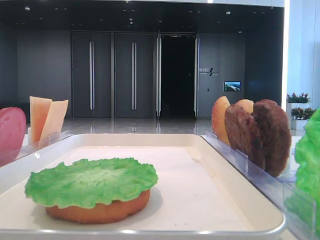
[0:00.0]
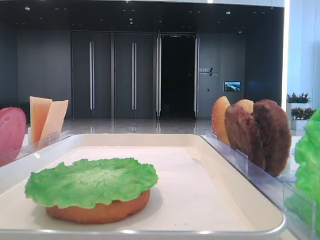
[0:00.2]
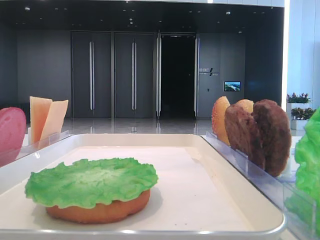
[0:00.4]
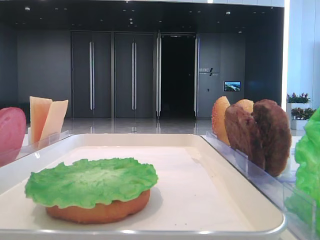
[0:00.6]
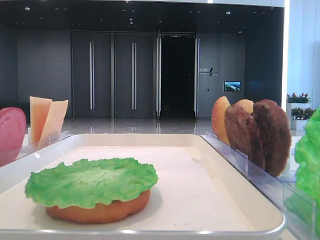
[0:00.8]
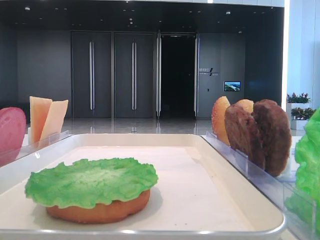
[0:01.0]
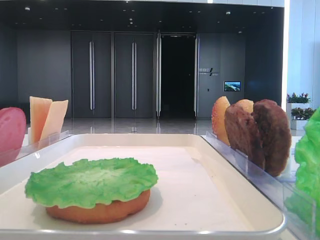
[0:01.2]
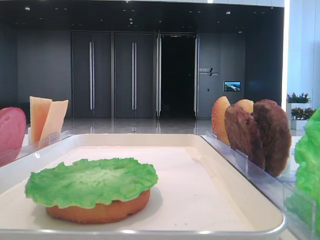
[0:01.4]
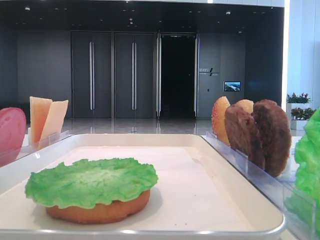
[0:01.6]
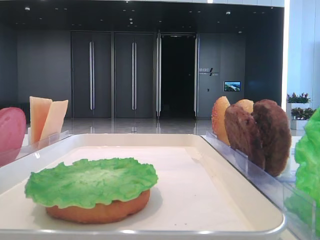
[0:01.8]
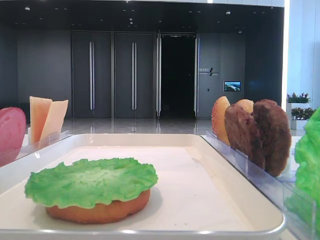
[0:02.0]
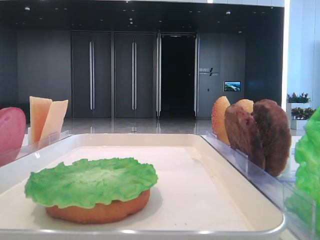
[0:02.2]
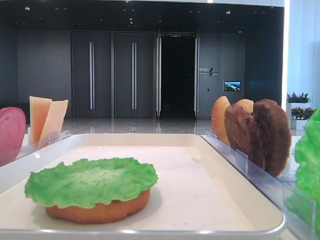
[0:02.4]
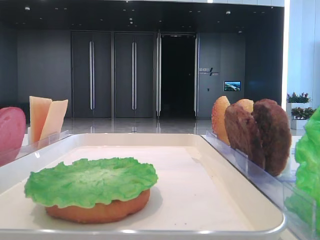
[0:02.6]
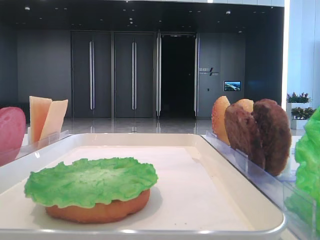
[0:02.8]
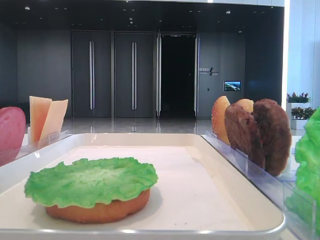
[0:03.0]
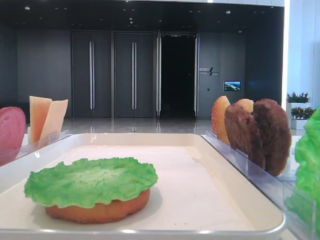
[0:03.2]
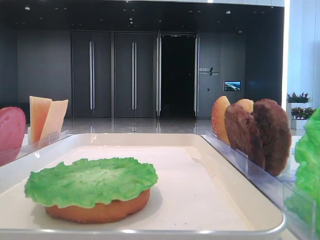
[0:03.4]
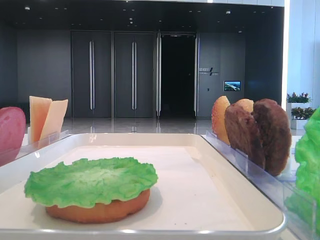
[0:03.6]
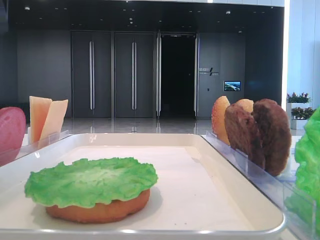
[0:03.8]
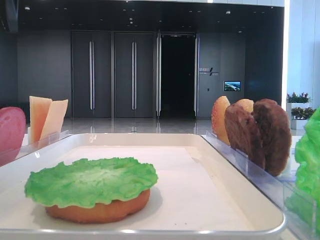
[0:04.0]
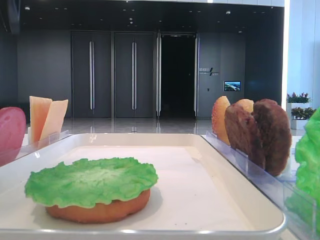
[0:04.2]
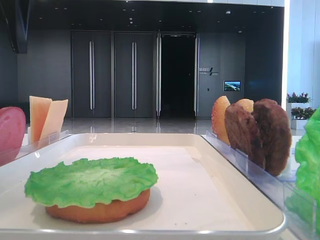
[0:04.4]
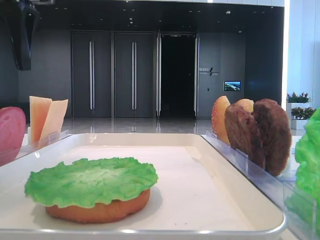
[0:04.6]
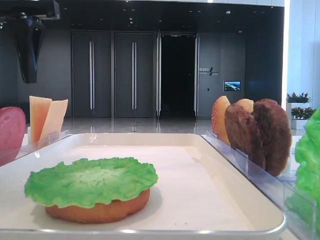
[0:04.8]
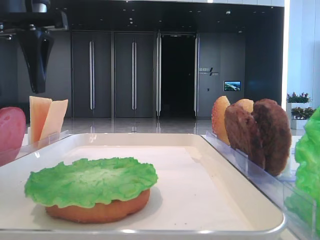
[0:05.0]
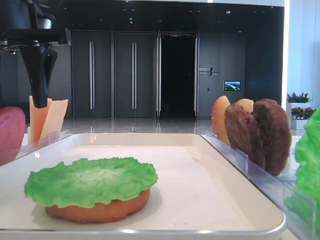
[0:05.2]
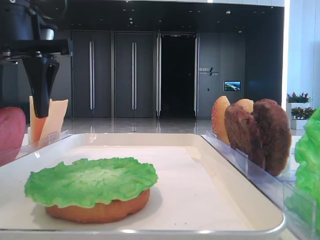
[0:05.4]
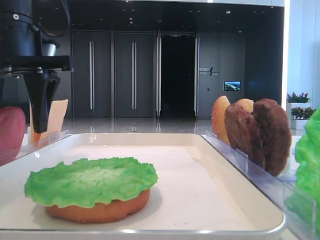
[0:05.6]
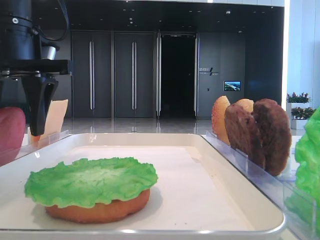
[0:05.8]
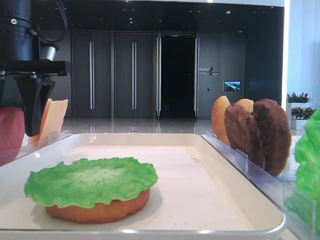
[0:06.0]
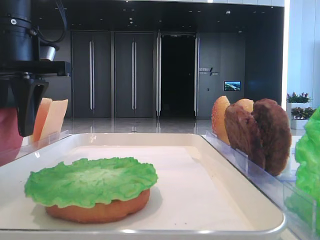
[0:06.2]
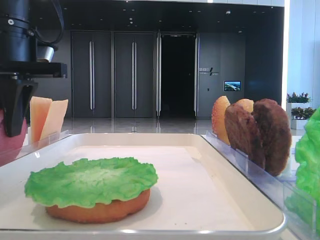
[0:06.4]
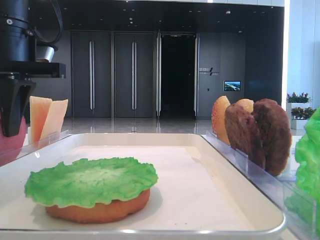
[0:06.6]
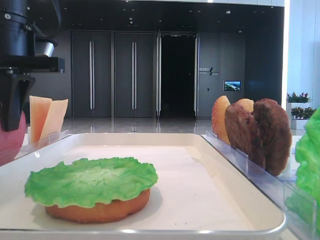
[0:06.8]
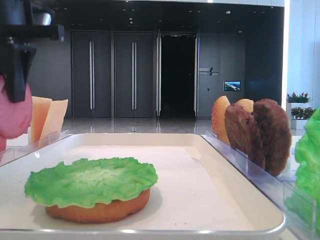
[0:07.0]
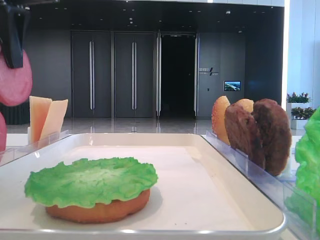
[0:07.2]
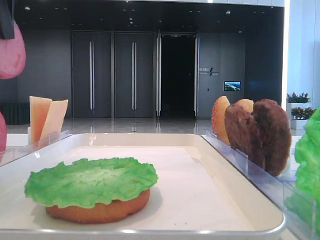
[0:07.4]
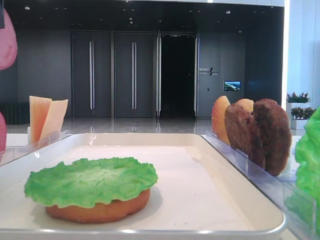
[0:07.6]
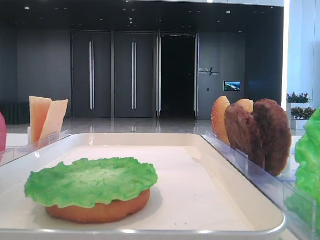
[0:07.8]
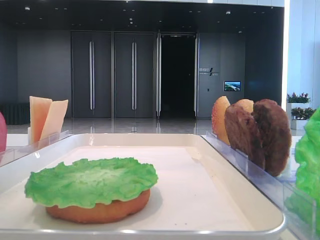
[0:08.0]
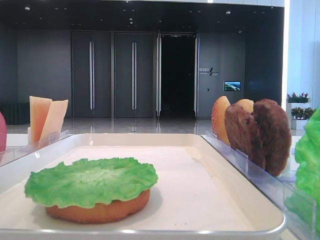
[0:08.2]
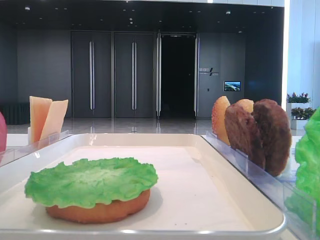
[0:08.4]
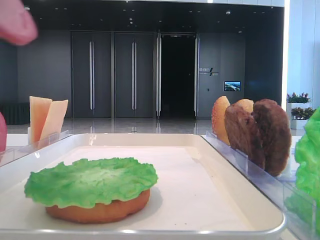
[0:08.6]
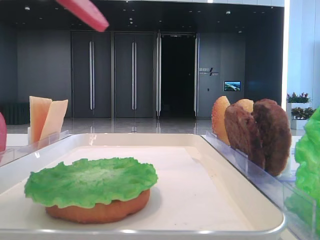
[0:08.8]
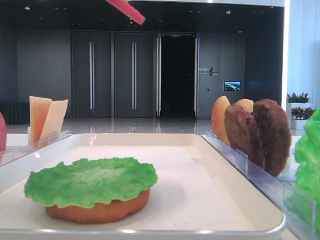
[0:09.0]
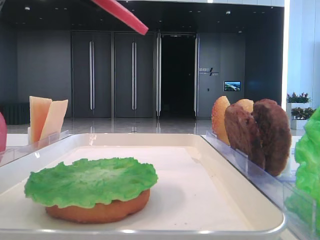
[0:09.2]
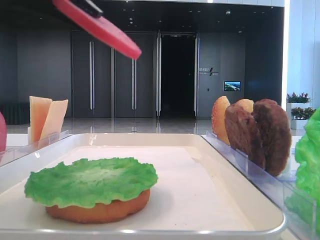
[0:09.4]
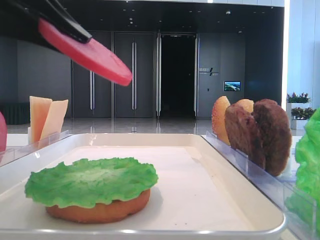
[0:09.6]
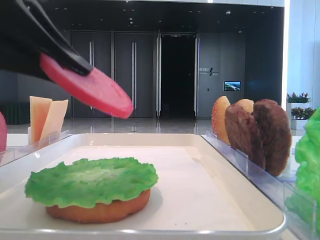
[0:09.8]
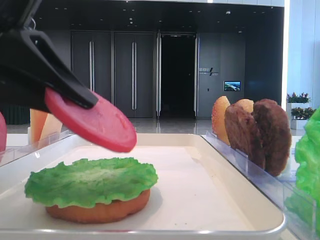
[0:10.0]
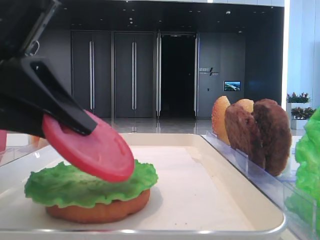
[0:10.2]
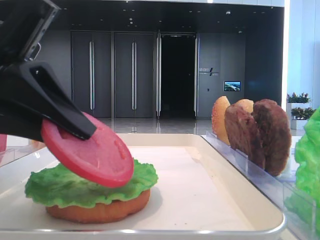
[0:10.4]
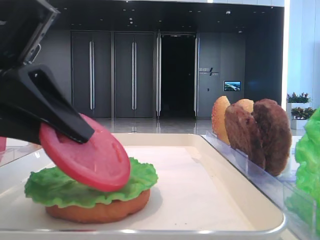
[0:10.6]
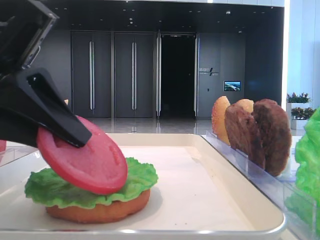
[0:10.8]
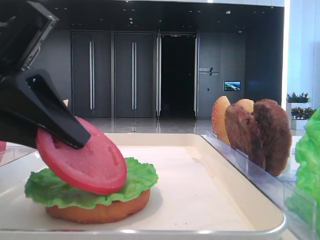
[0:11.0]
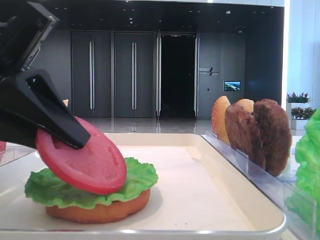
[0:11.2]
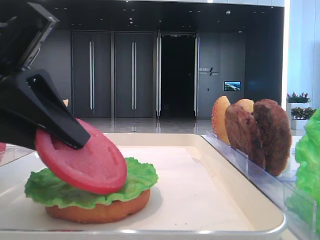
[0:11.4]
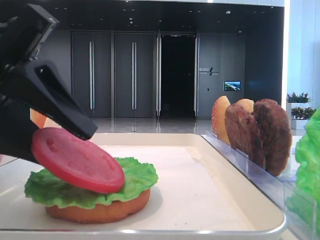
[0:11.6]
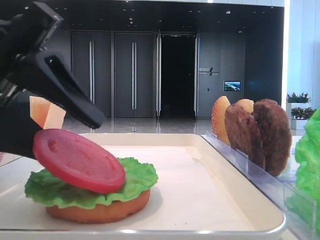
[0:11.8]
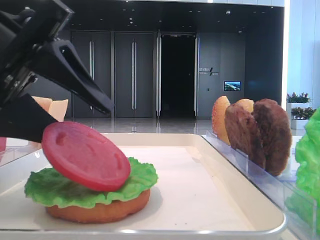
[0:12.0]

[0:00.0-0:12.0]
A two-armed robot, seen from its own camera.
Step, 0:00.0 to 0:06.4: Pick up the tomato slice with the left hand.
0:03.0 to 0:04.4: The left gripper is displaced to the right by roughly 15 cm, and opens.
0:04.4 to 0:06.0: The left gripper goes about 10 cm downward.
0:06.0 to 0:07.6: The left gripper moves upward and backward, approximately 15 cm, and closes up.
0:07.6 to 0:09.0: The left gripper moves backward, about 5 cm.
0:09.0 to 0:10.4: The left gripper goes some 10 cm downward.
0:10.4 to 0:12.0: The left gripper opens up.

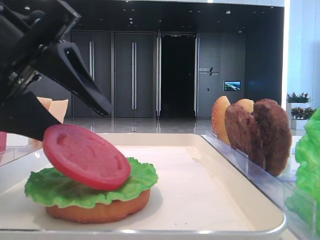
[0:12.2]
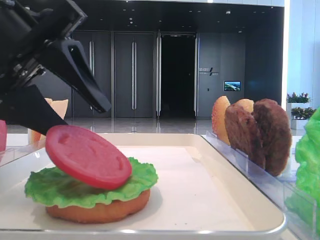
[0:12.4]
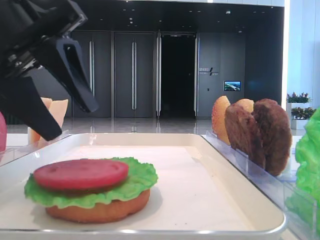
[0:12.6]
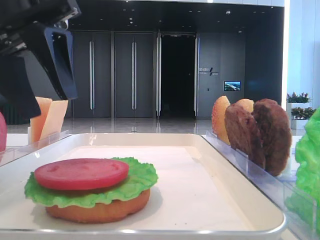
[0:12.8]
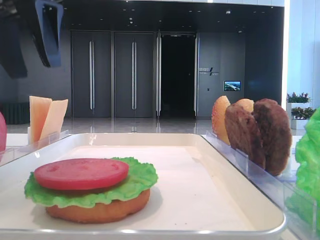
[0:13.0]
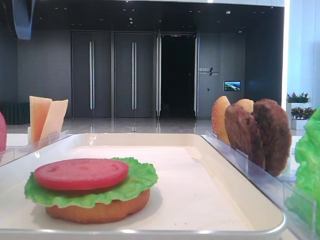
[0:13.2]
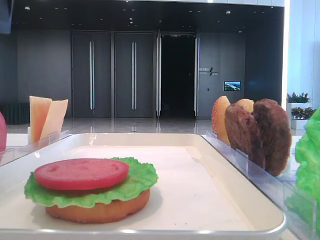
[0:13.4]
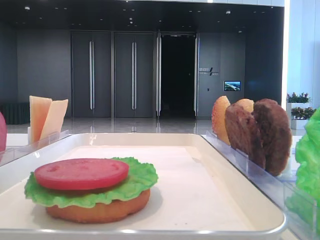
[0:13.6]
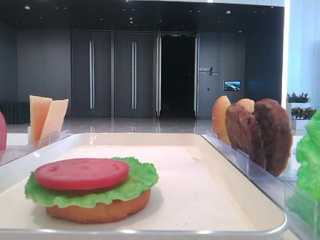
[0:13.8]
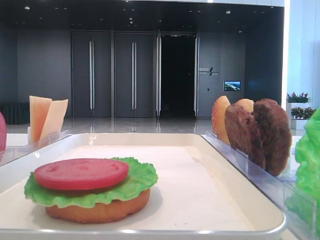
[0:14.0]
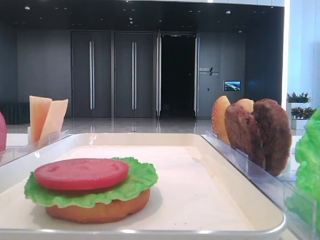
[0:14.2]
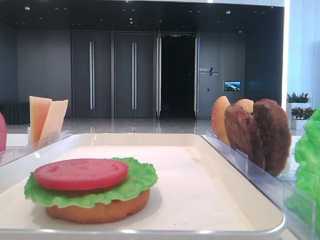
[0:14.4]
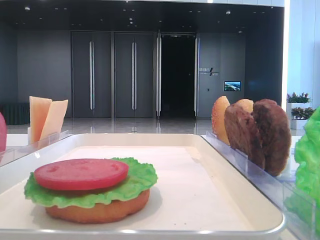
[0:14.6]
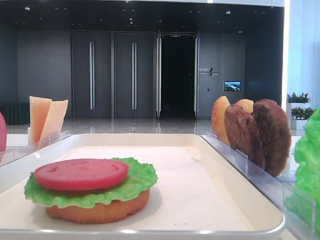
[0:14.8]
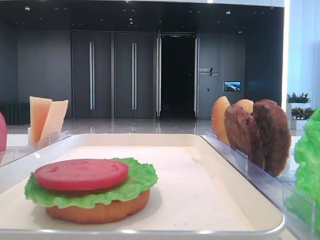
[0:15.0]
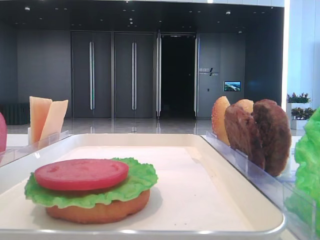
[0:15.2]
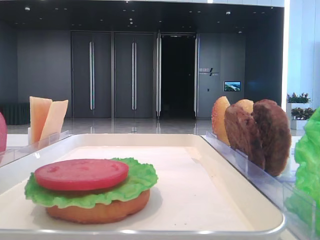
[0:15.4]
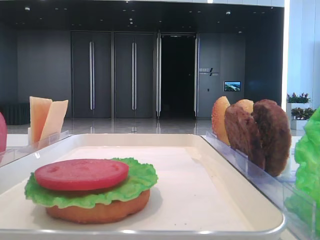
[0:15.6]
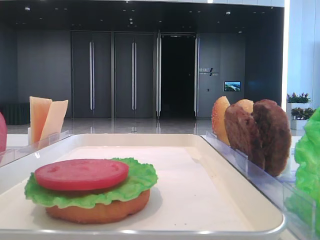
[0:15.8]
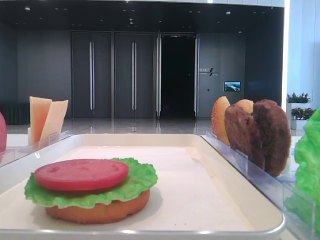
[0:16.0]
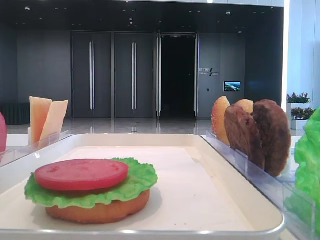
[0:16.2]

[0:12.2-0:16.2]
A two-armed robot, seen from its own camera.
0:12.2 to 0:13.6: The left gripper travels upward, to the left and forward by some 20 cm.
